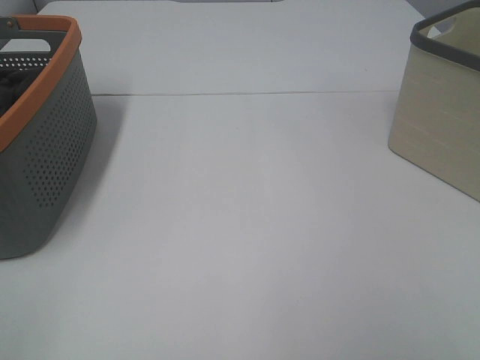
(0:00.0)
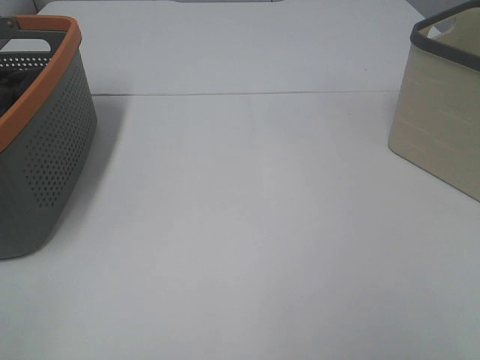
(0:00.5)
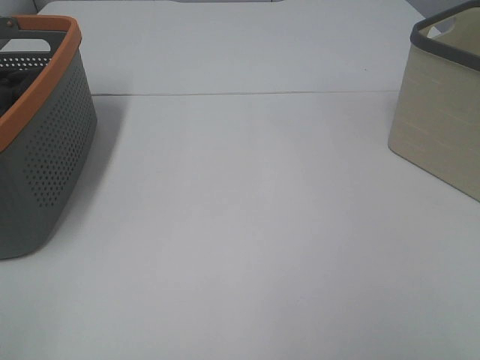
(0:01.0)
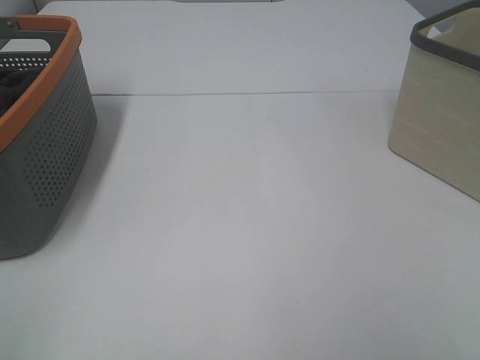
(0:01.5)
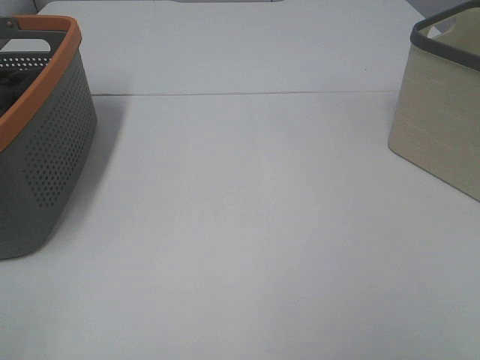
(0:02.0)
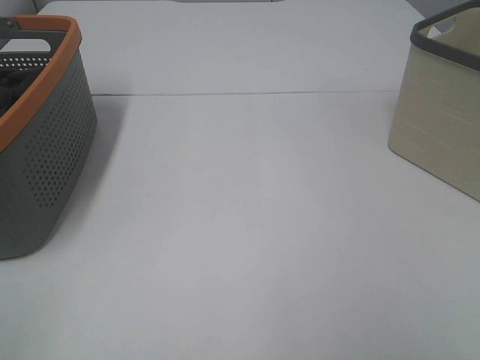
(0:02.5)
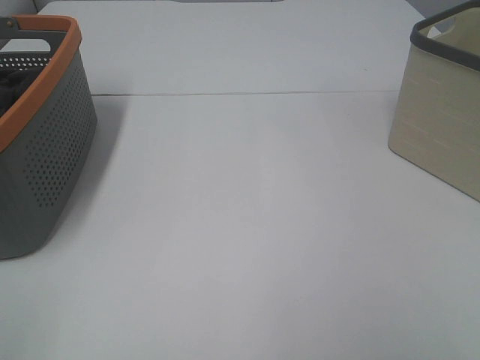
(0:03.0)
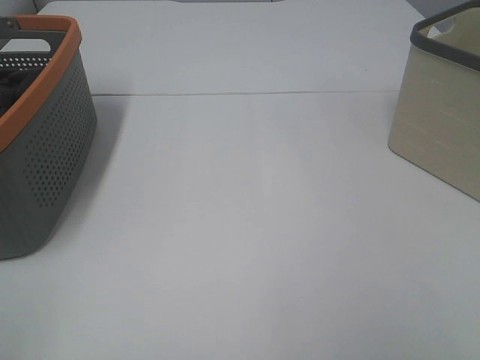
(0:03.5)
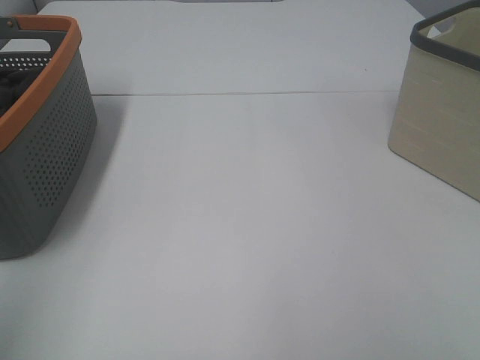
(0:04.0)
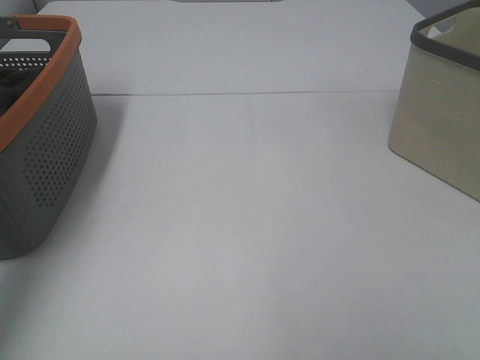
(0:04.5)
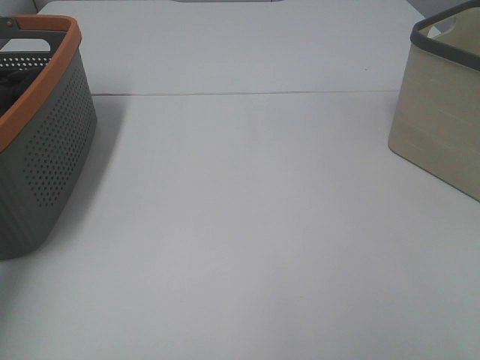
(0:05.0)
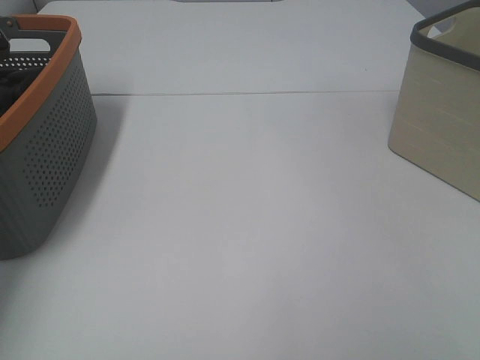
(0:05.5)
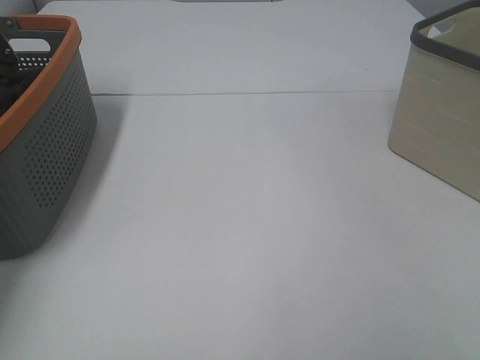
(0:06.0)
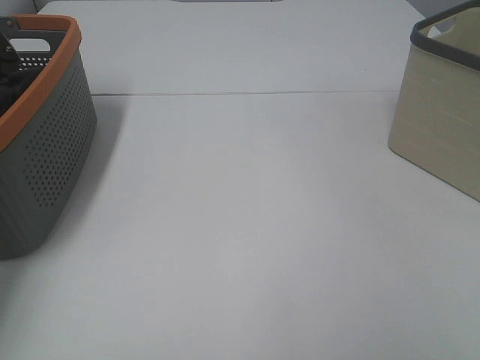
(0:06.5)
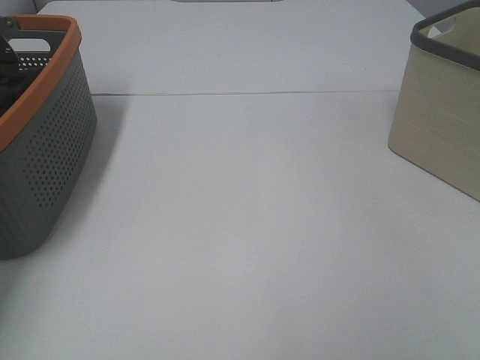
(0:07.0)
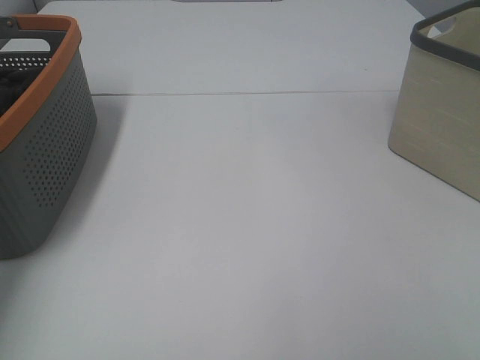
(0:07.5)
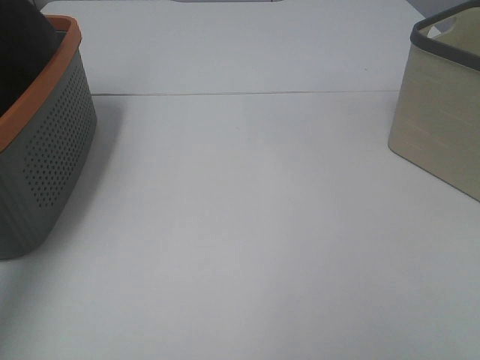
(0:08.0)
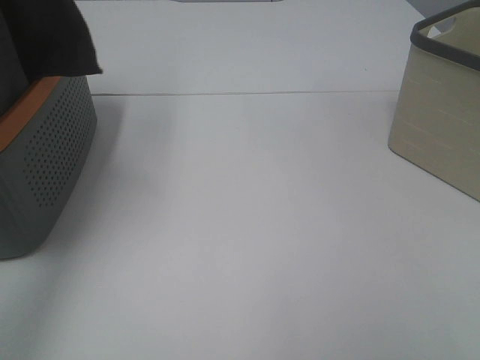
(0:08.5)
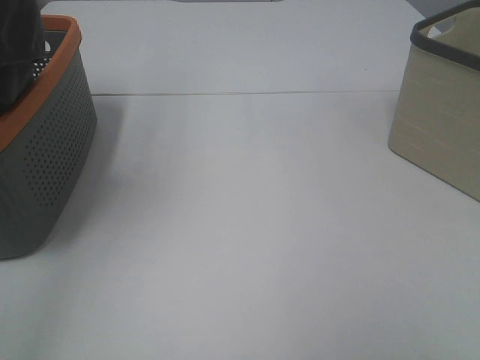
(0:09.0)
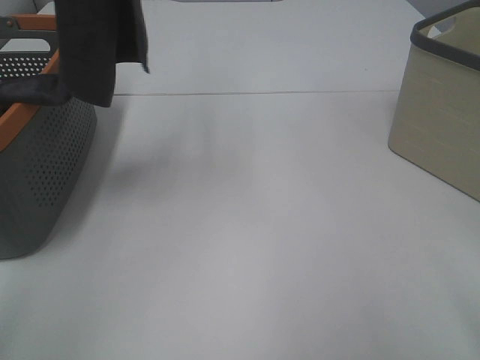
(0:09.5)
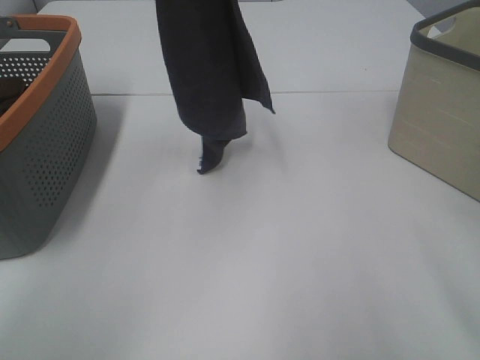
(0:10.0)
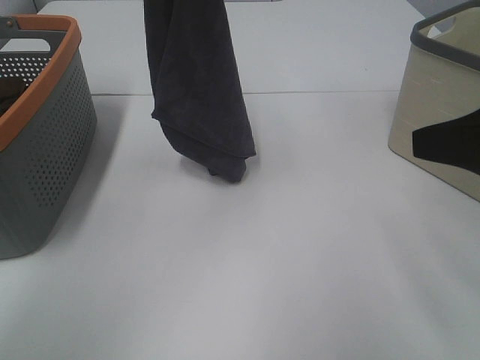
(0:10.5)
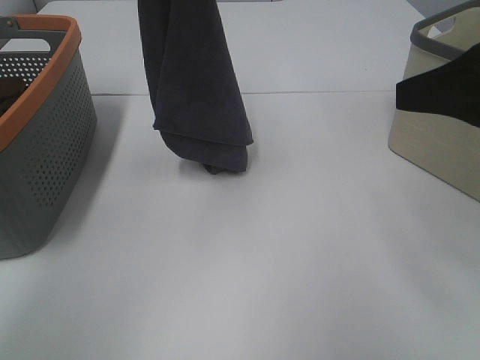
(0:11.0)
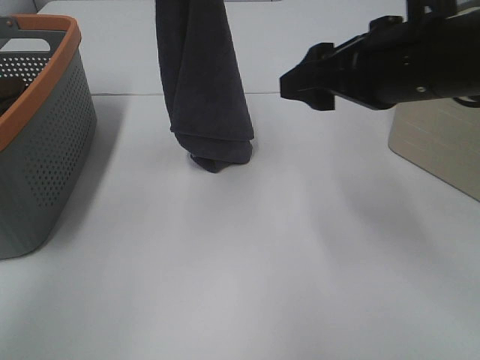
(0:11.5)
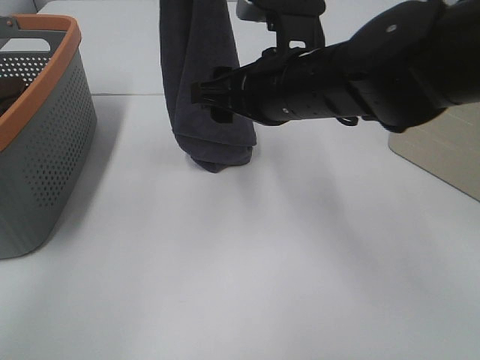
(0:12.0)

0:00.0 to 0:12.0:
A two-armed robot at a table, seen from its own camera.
Task of the whole recording: Remove the towel and place it.
0:00.0 to 0:02.0: Both grippers stay put.
0:04.0 to 0:06.0: The left gripper goes about 40 cm forward and downward, and closes.
0:06.0 to 0:08.0: The left gripper travels upward by some 25 cm, and closes its fingers.
0:08.0 to 0:10.0: The right gripper goes roughly 10 cm forward, while the left gripper heads to the right, covering some 20 cm.
0:10.0 to 0:12.0: The left gripper is displaced downward by approximately 5 cm; the right gripper heads to the left and forward, covering roughly 25 cm.

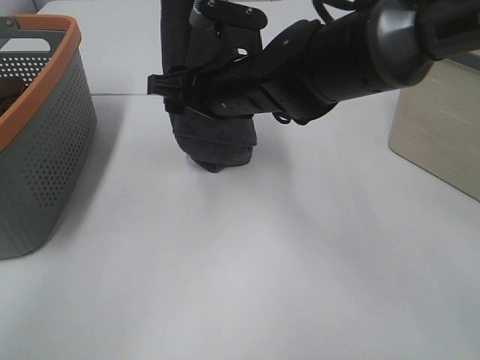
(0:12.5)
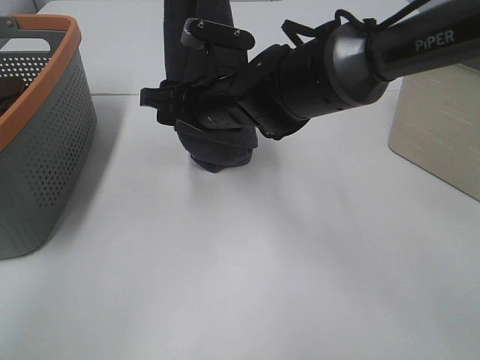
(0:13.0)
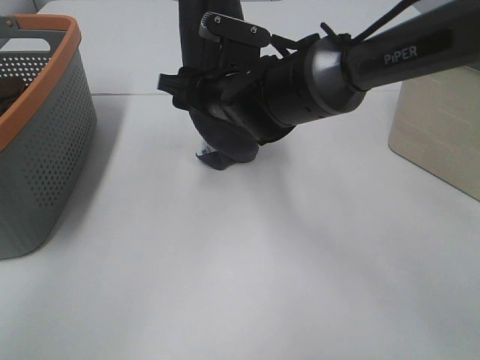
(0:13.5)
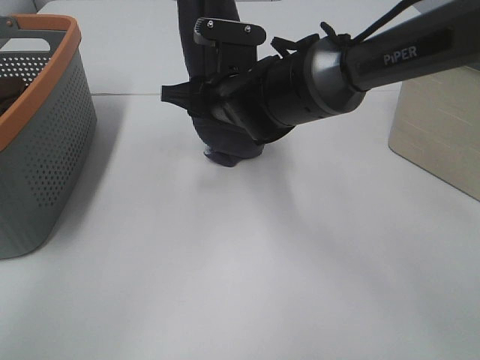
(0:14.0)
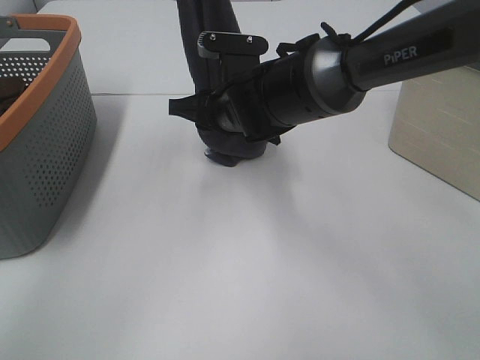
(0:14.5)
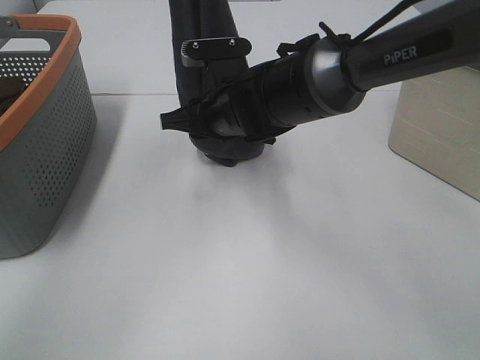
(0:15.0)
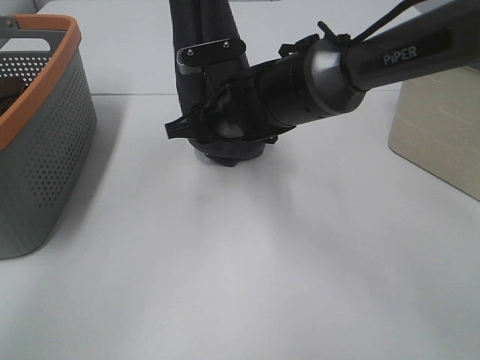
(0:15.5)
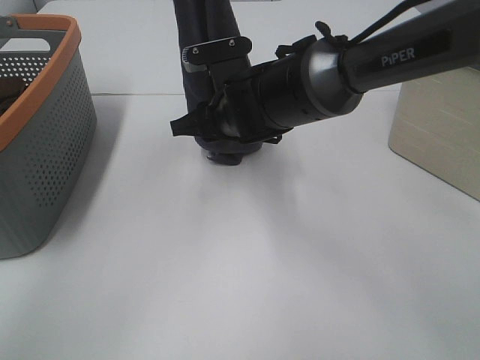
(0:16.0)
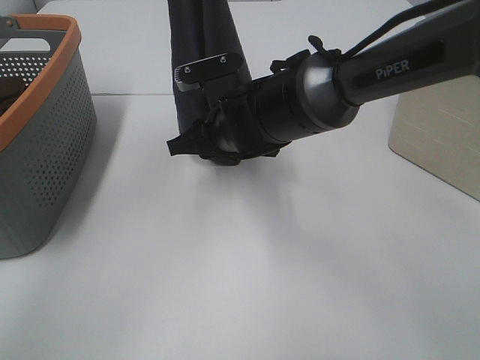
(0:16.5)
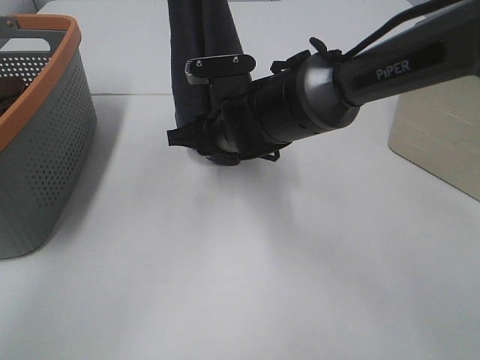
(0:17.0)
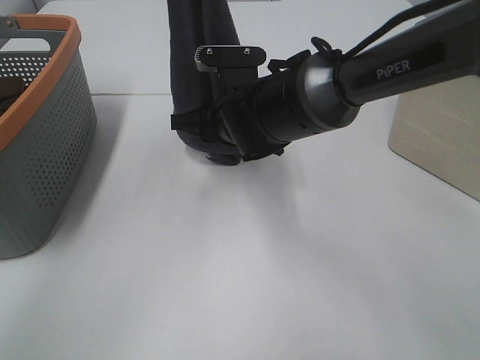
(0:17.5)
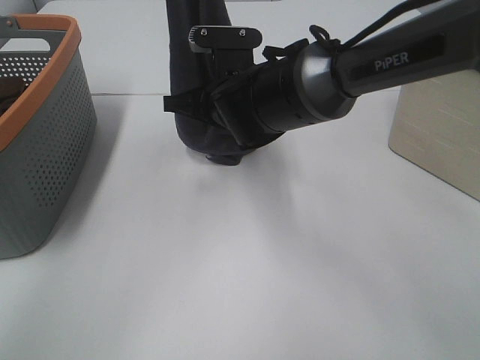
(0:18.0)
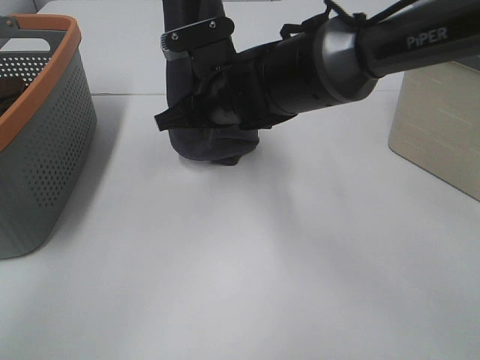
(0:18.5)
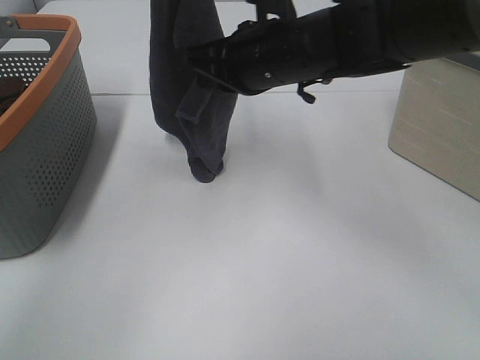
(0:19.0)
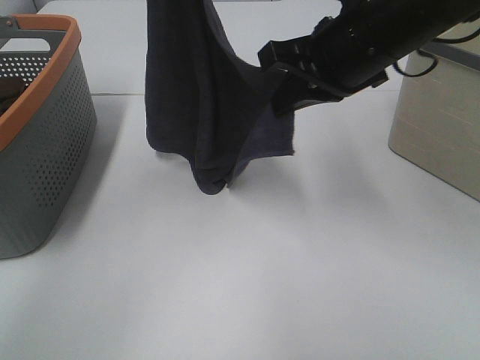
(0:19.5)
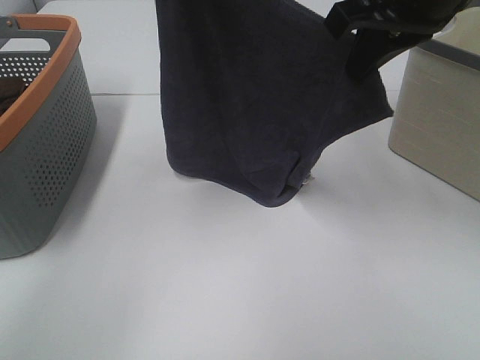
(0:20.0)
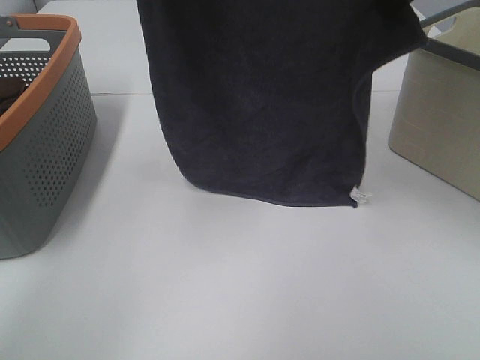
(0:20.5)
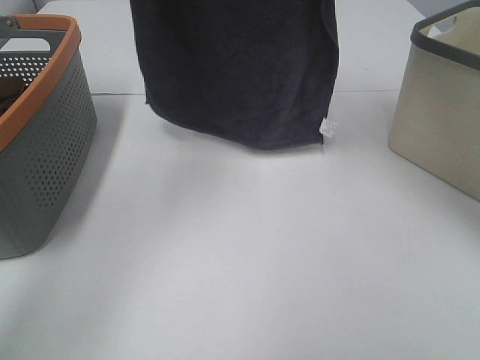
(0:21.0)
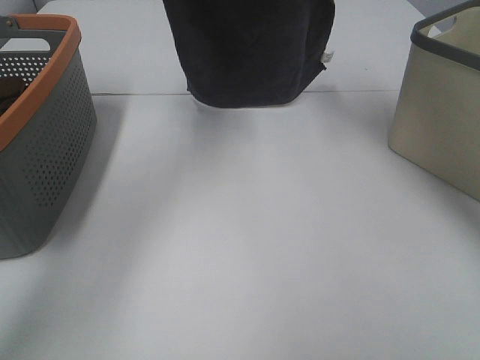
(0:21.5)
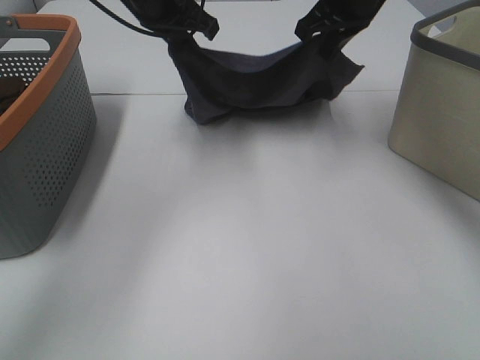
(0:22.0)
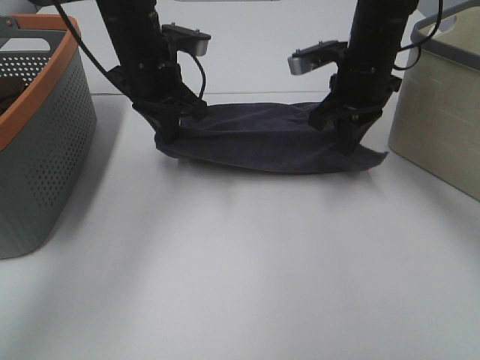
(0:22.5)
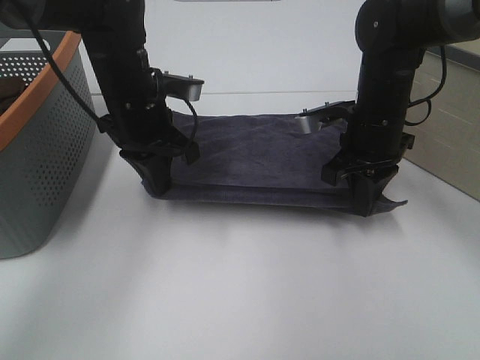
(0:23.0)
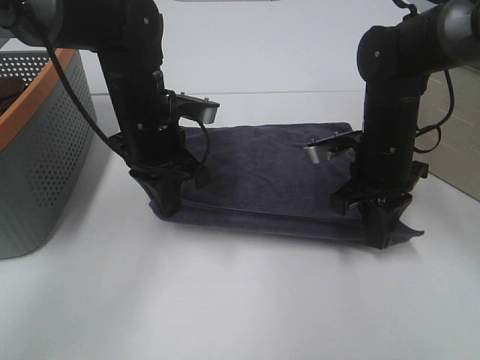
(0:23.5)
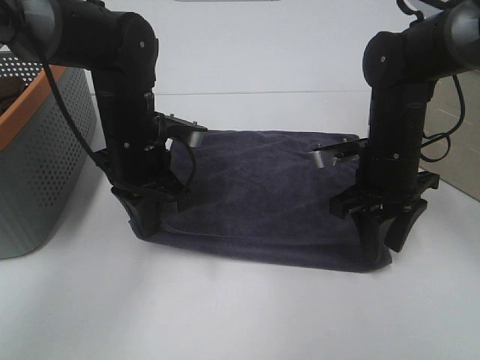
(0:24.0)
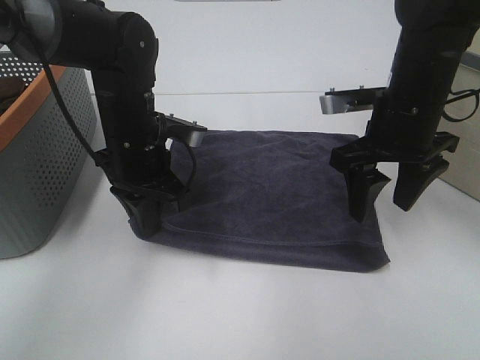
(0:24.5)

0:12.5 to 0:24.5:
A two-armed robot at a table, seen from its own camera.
Task of the whole recording: Remove the towel and place it.
Step, 0:12.5 to 0:17.0: Right hand: grab a corner of the grey towel and straighten it.
Step, 0:17.5 to 0:19.0: Right hand: spread the grey towel flat on the table.
0:12.5 to 0:14.5: The right gripper ends up about 5 cm from where it was, and closes up.
0:14.5 to 0:16.5: The grippers move only a little.
0:16.5 to 0:18.5: The right gripper closes up.
0:18.5 to 0:20.5: The right gripper travels upward and to the right by about 25 cm.
0:20.5 to 0:22.5: The right gripper moves downward and forward, some 20 cm; the left gripper moves downward, approximately 20 cm.
0:22.5 to 0:24.5: The right gripper travels backward by approximately 10 cm, and opens its fingers. Meanwhile the left gripper goes about 10 cm backward and downward.

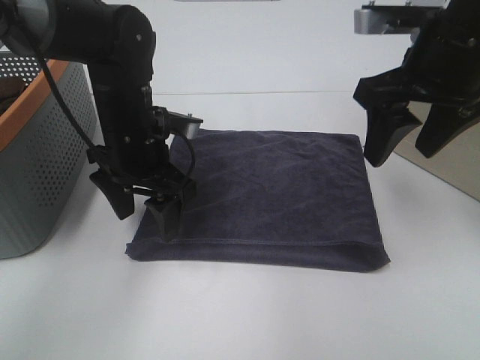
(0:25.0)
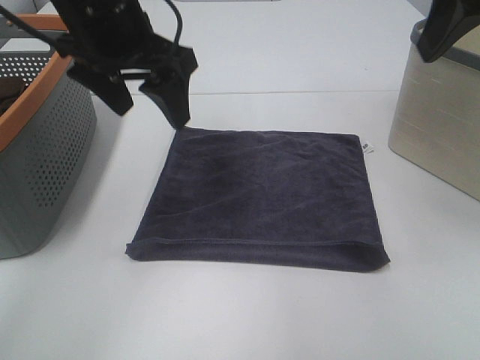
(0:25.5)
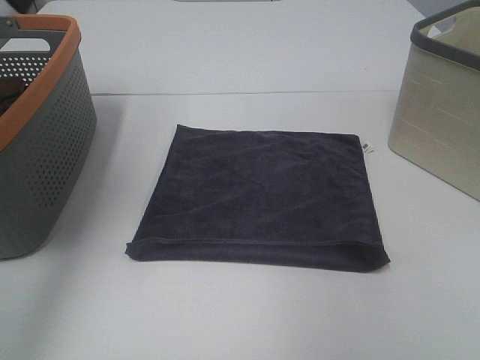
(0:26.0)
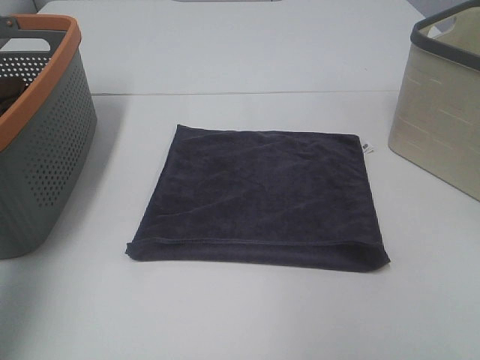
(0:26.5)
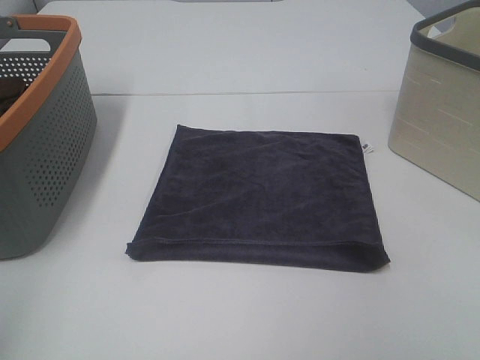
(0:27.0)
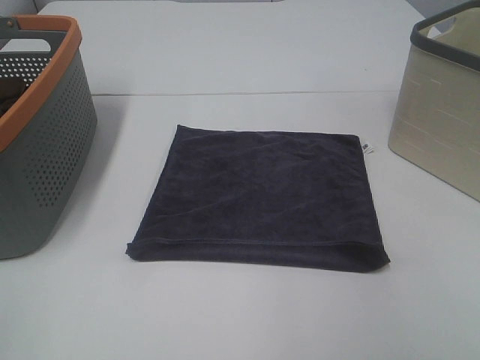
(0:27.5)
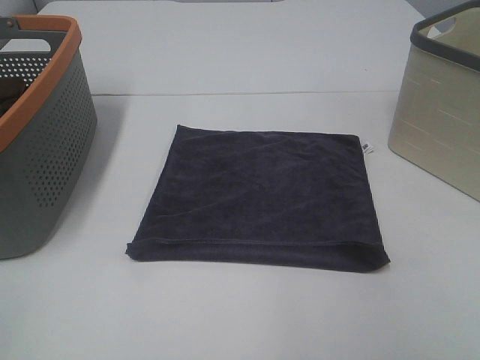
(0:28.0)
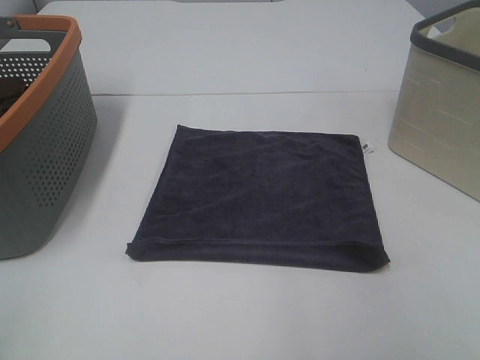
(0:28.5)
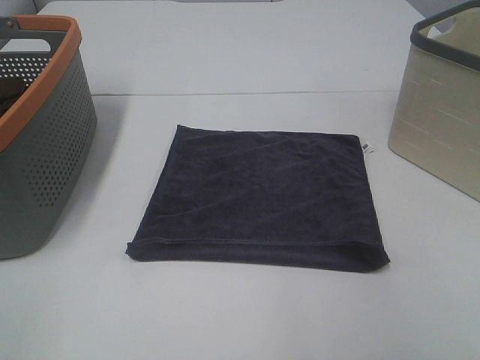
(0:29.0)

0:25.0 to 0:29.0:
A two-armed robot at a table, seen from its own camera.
Task of the whole recording: Remove the towel and place it.
0:25.0 to 0:27.0: The right gripper moves backward and to the right, approximately 30 cm, while the left gripper shifts about 40 cm backward, to the left and upward.
